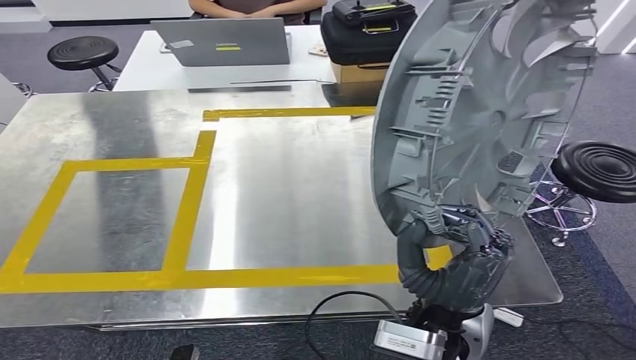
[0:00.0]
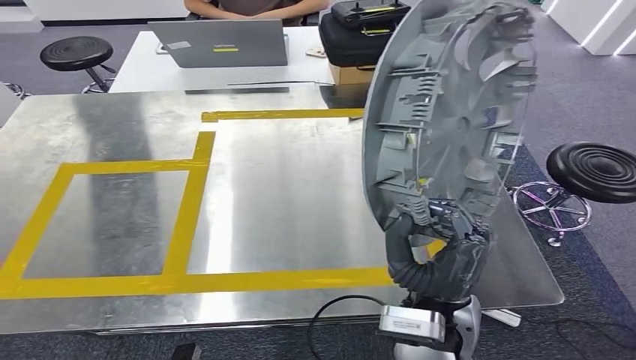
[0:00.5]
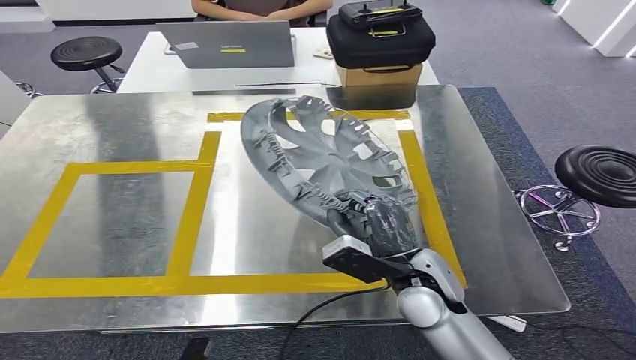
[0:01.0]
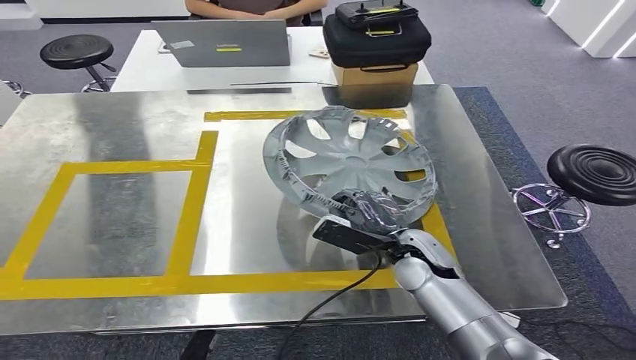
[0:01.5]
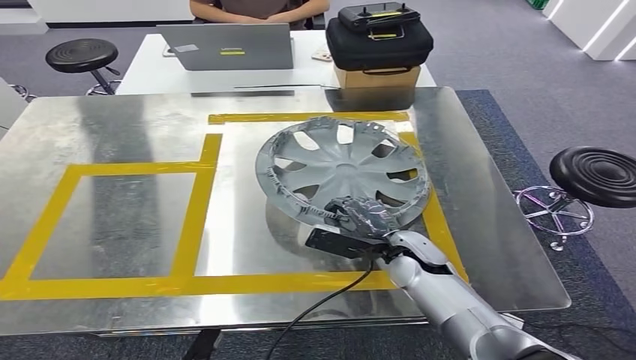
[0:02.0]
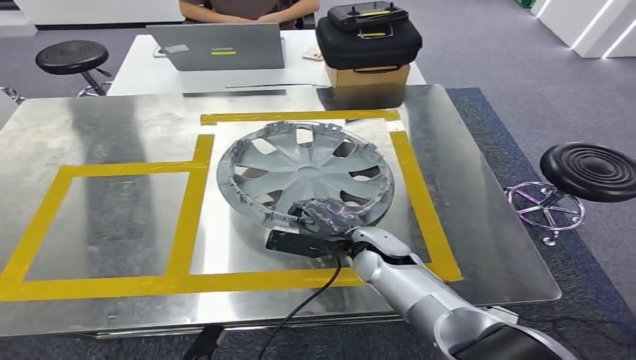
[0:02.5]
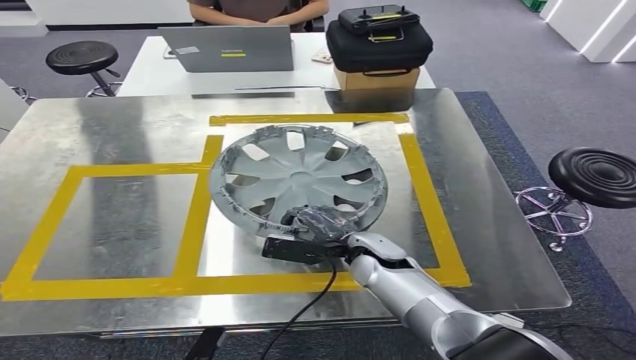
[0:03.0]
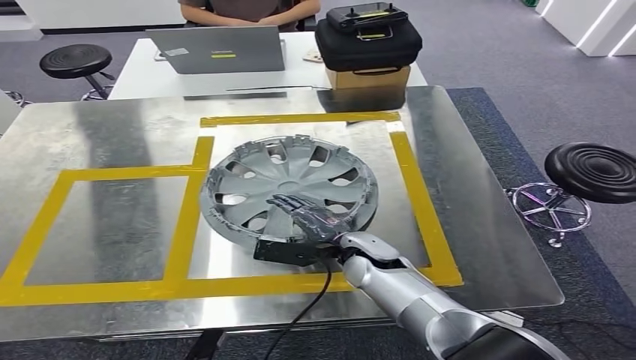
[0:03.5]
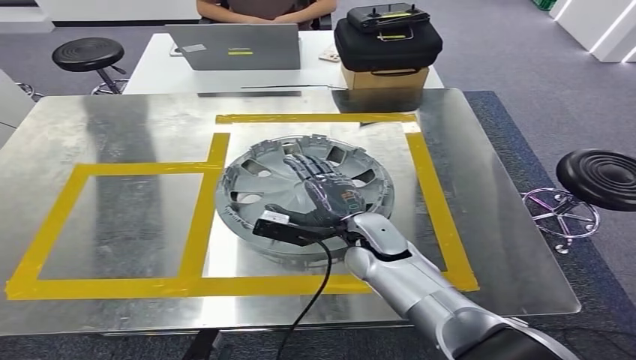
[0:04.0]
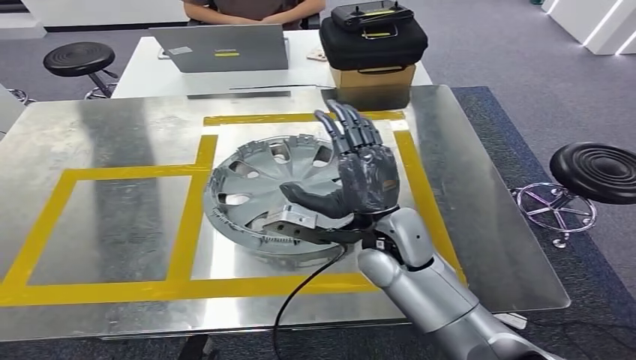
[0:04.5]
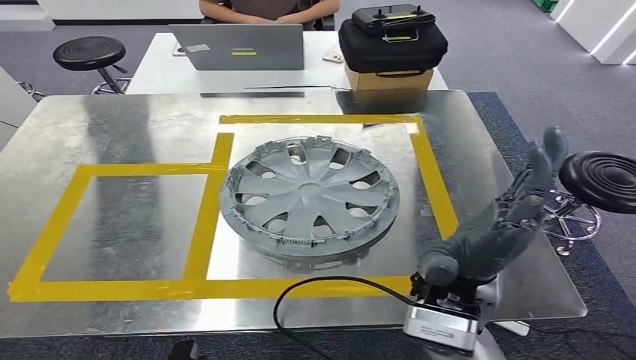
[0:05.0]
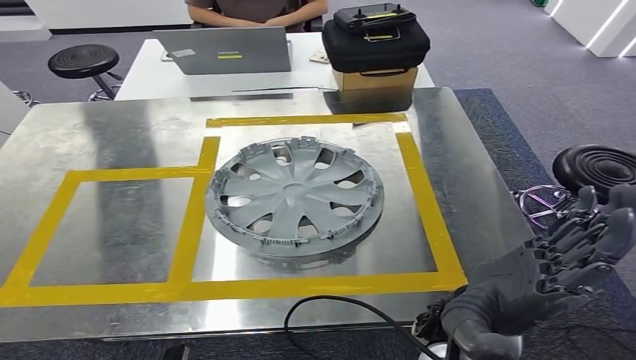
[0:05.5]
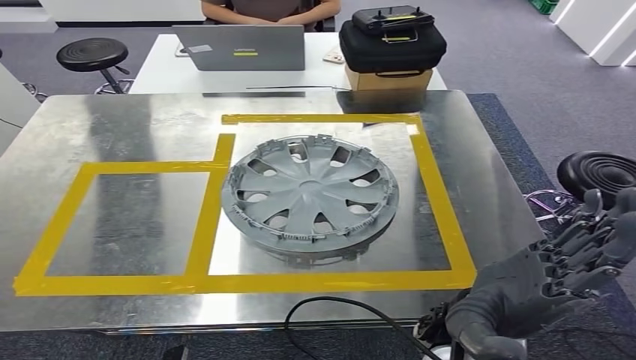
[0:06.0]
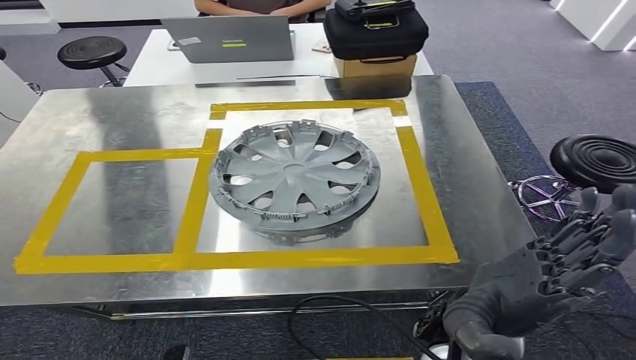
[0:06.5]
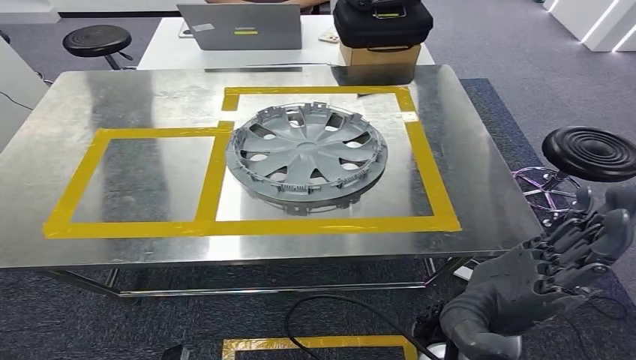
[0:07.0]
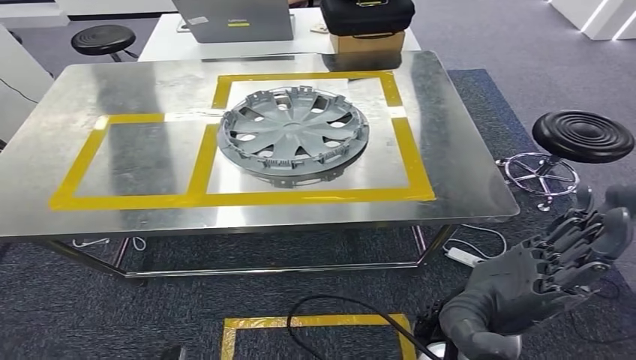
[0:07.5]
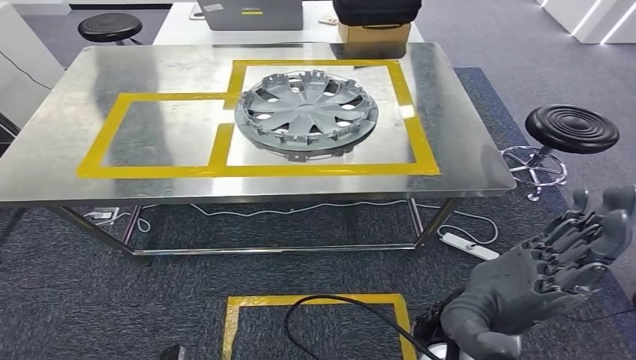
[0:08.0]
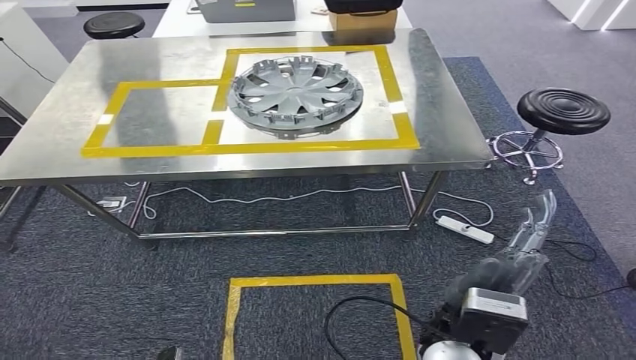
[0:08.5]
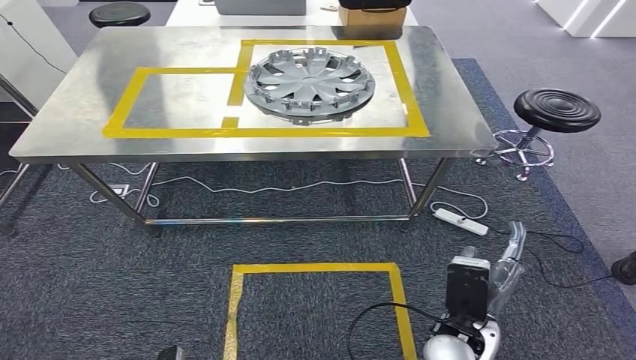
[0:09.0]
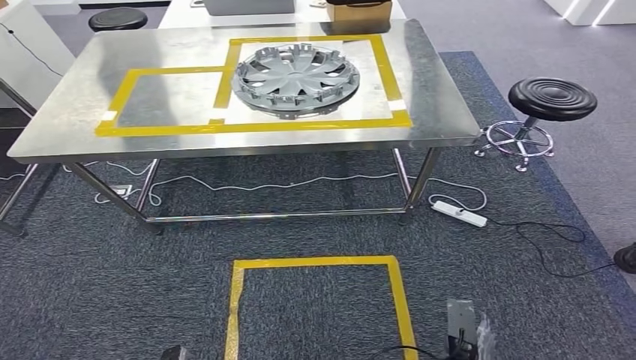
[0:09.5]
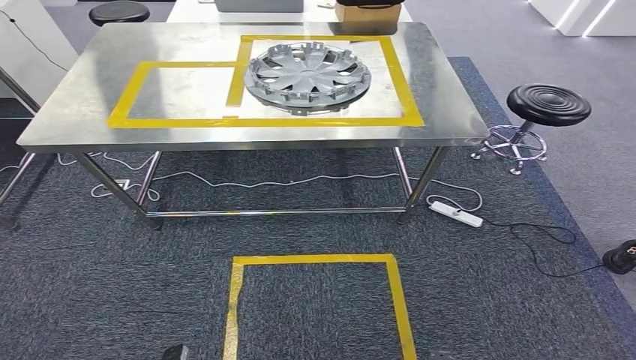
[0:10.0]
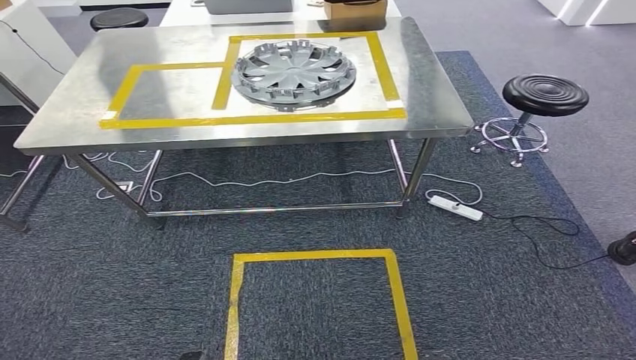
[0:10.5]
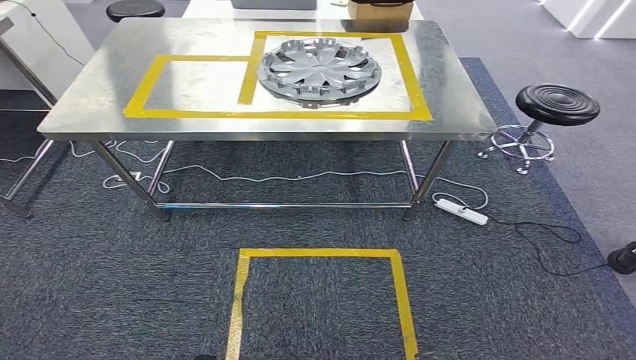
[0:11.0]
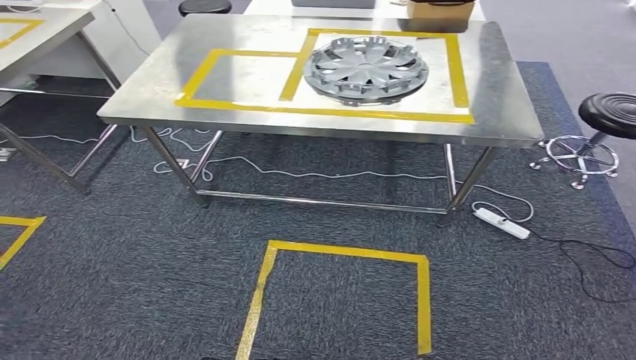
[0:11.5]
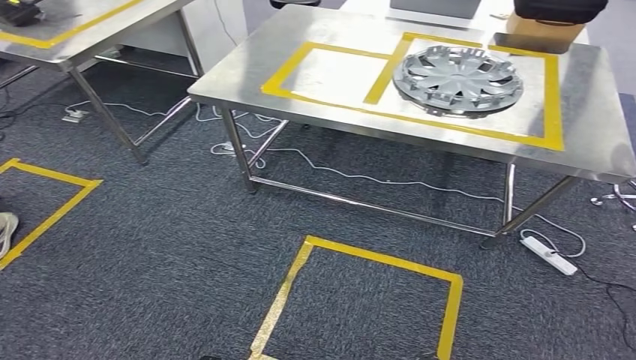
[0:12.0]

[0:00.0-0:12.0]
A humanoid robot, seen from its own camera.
Step, 0:00.0 to 0:05.5: Insert the small parts into the corresponding holes on the workbench.

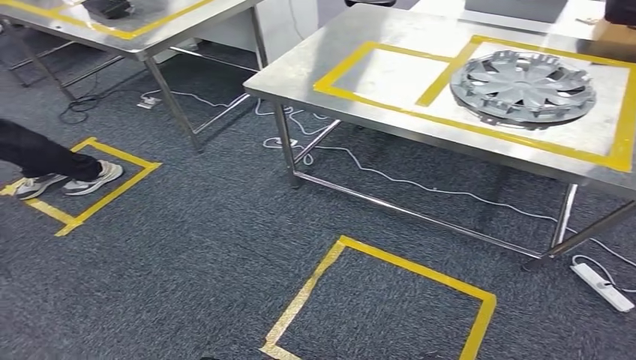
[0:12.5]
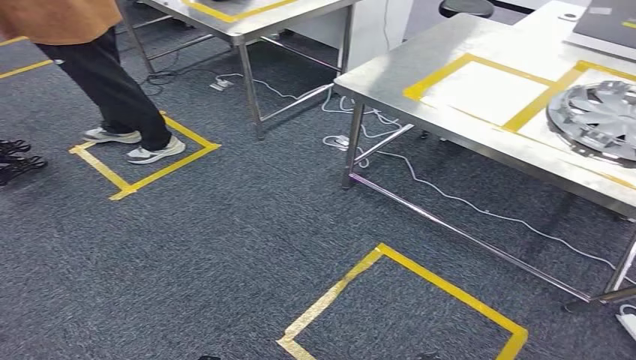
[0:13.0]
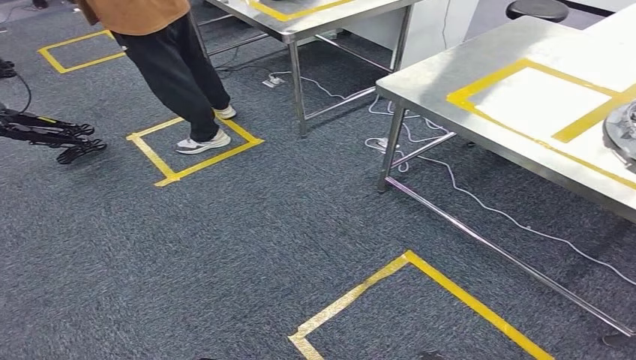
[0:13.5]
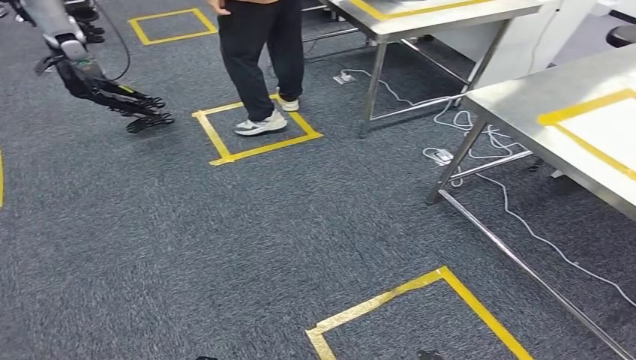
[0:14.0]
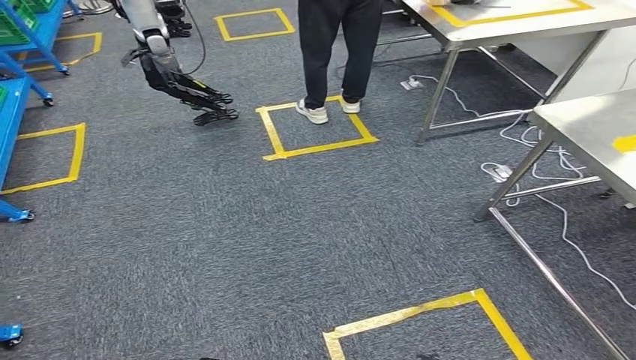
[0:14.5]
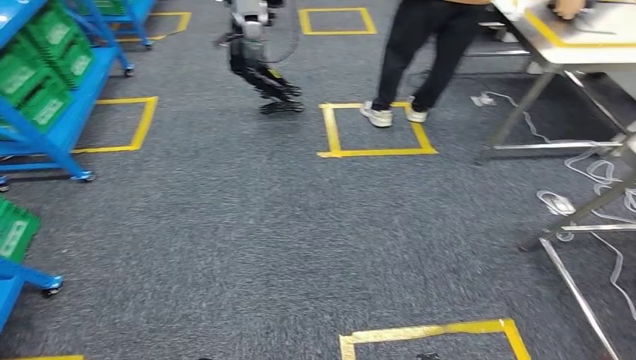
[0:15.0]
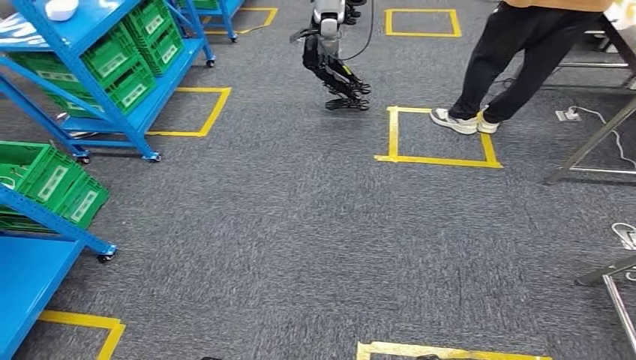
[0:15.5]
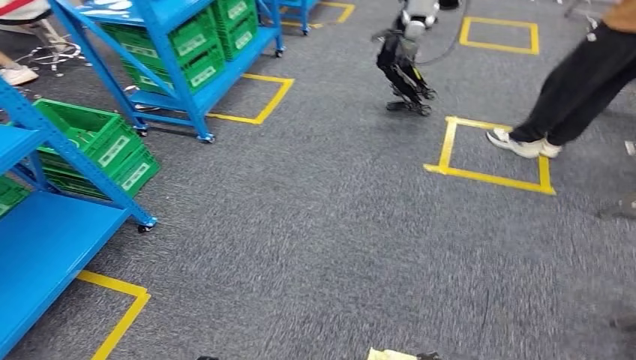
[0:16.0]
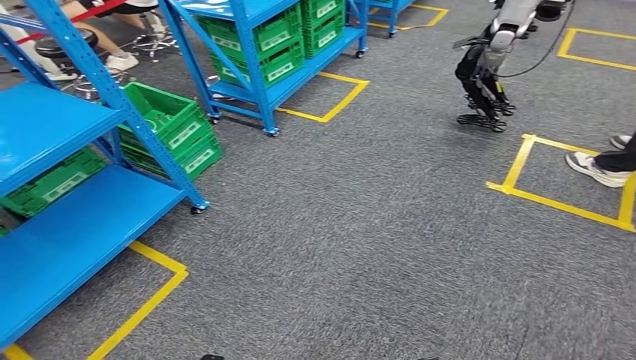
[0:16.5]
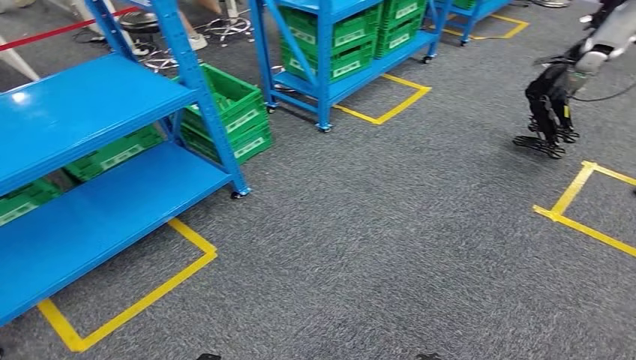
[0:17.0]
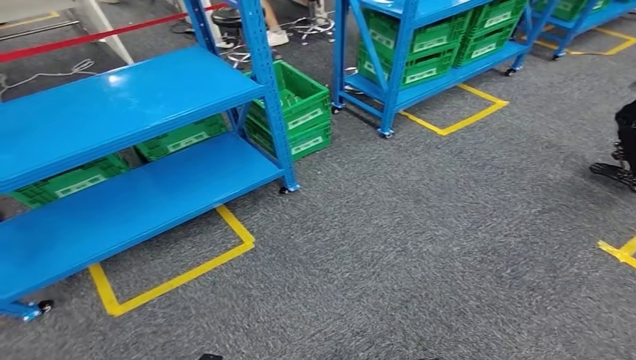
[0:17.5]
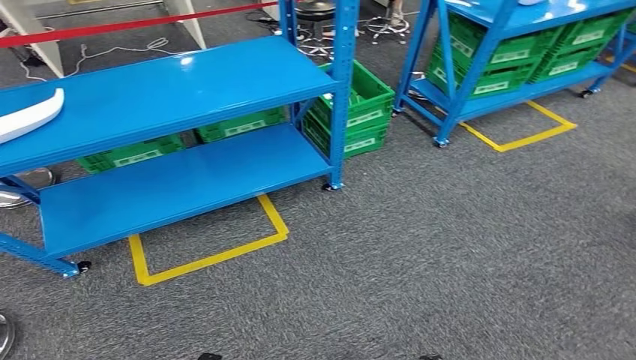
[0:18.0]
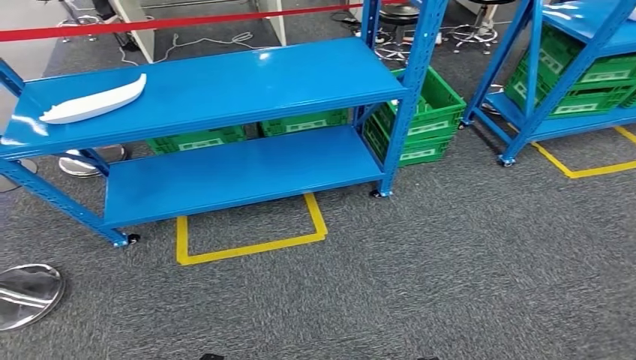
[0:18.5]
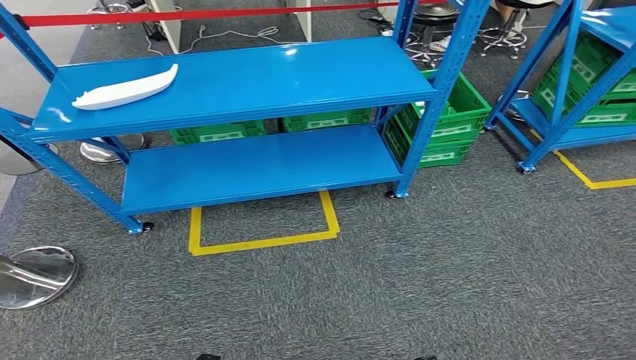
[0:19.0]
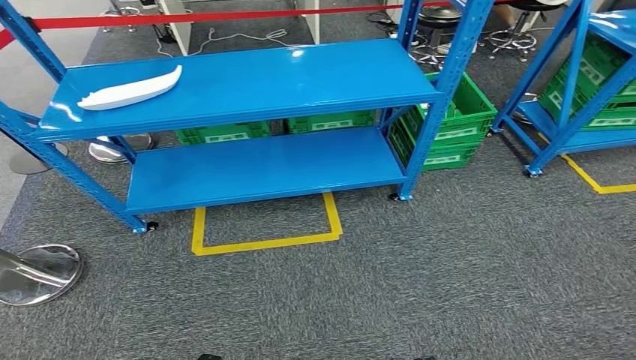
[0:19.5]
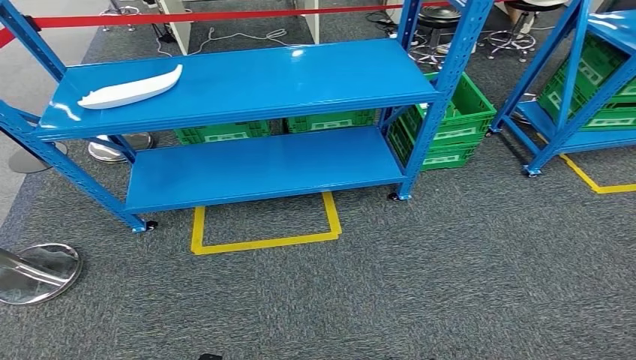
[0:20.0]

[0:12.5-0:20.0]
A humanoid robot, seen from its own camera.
Step, 0:12.5 to 0:20.0: Move to the initial position of the workbench.

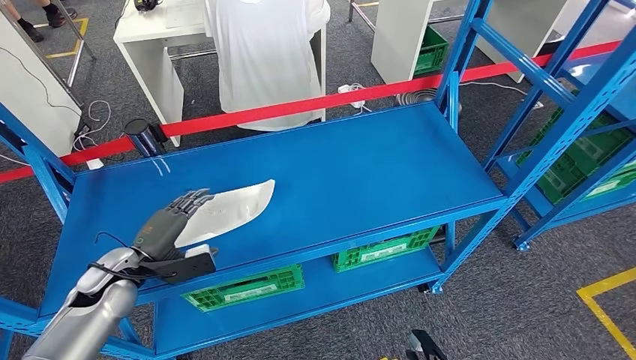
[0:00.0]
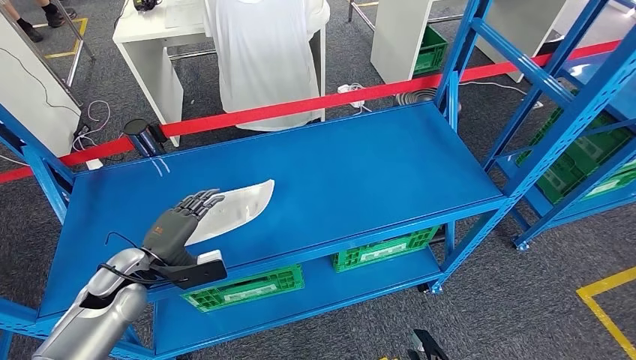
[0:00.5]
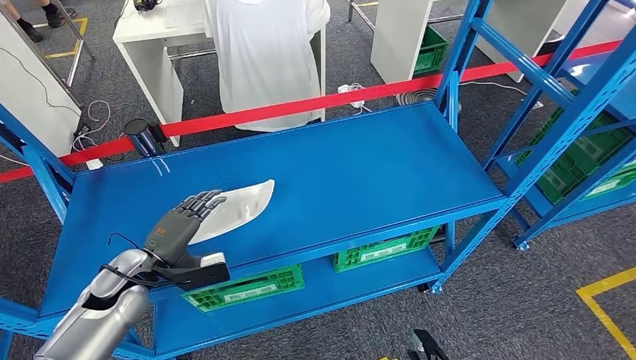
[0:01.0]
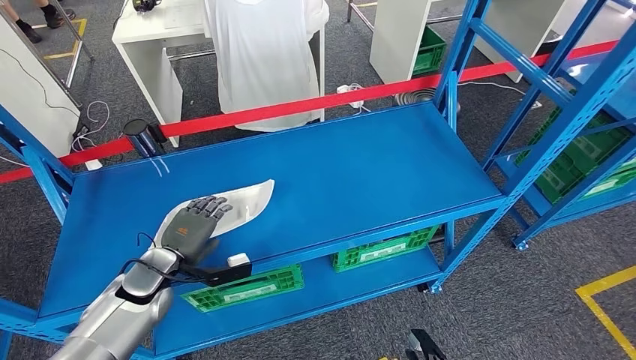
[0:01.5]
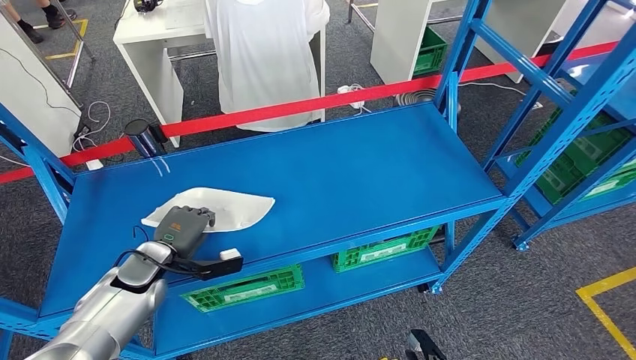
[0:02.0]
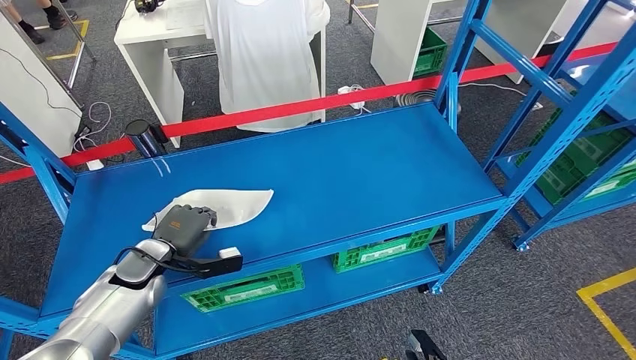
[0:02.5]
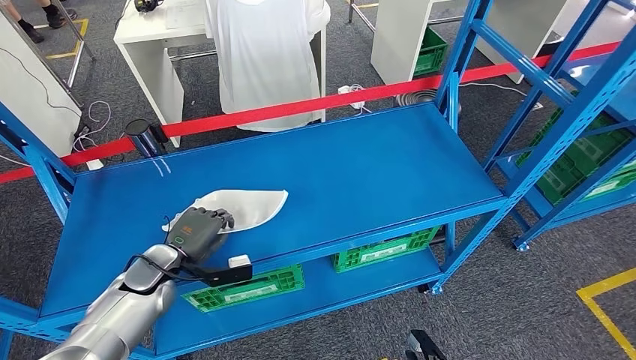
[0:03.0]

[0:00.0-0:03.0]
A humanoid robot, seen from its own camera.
0:00.0 to 0:01.5: The left hand changes place by some 5 cm.
0:01.5 to 0:03.0: The hands move only a little.
